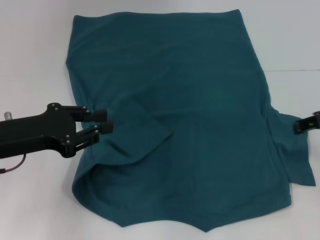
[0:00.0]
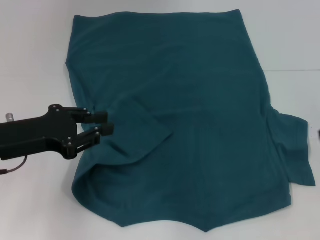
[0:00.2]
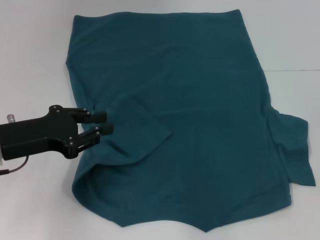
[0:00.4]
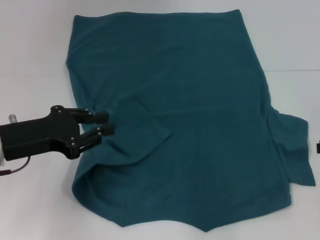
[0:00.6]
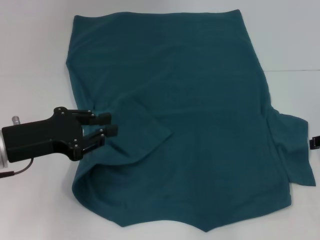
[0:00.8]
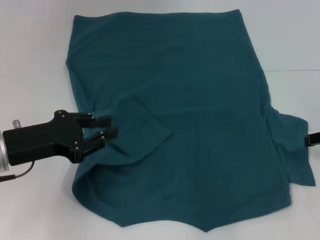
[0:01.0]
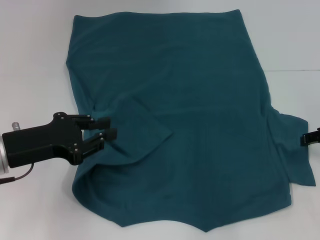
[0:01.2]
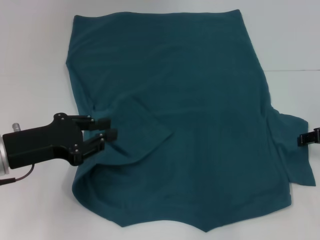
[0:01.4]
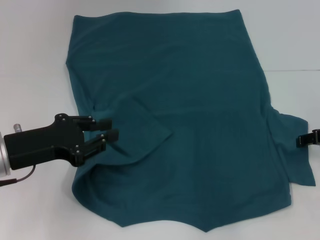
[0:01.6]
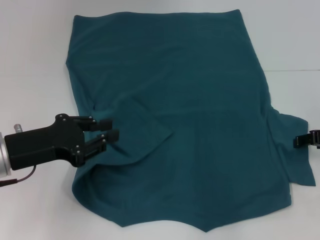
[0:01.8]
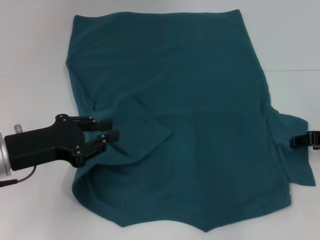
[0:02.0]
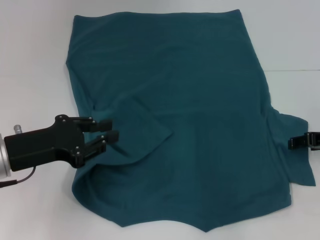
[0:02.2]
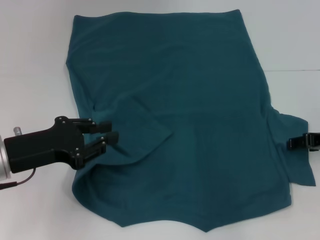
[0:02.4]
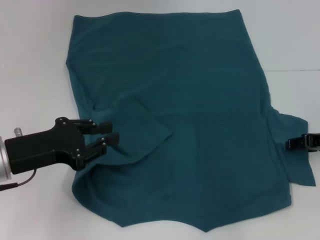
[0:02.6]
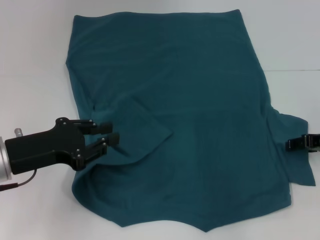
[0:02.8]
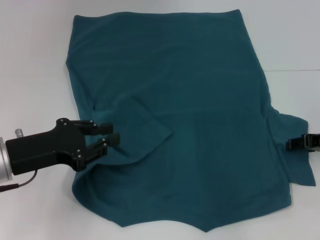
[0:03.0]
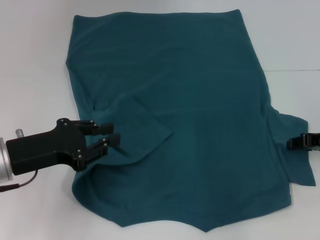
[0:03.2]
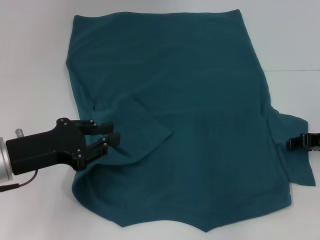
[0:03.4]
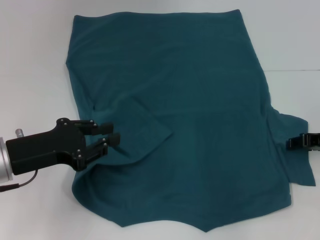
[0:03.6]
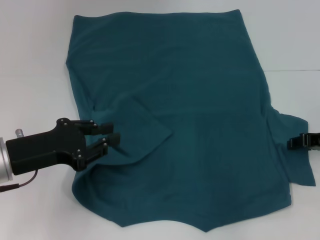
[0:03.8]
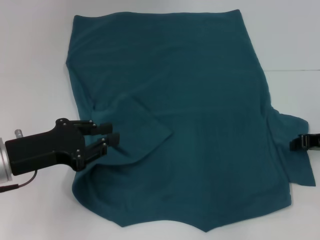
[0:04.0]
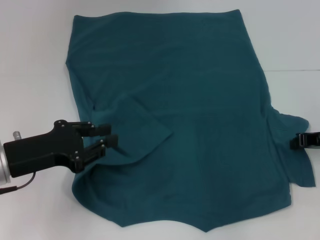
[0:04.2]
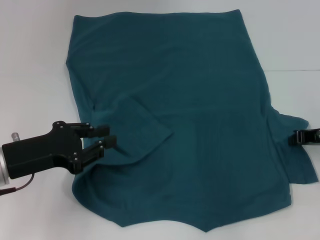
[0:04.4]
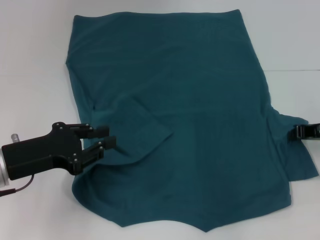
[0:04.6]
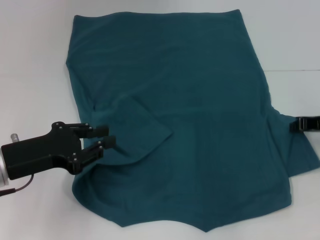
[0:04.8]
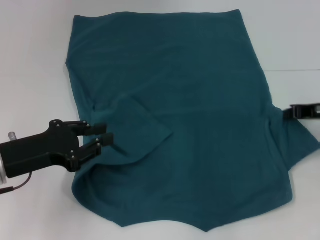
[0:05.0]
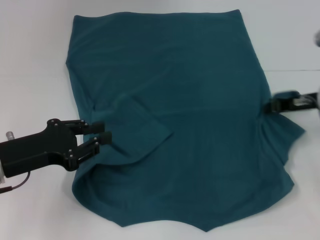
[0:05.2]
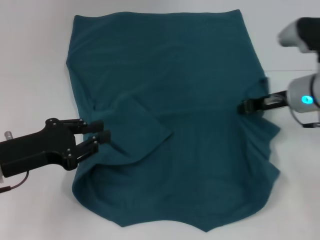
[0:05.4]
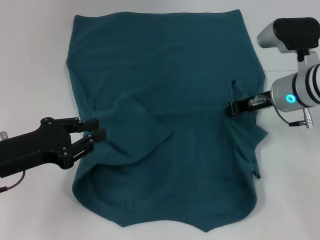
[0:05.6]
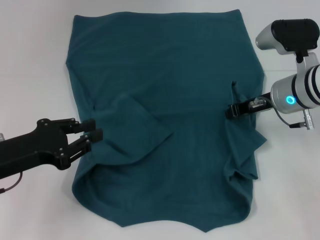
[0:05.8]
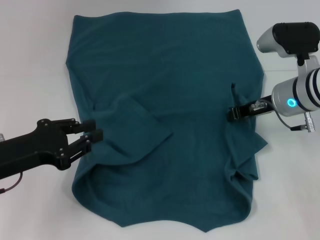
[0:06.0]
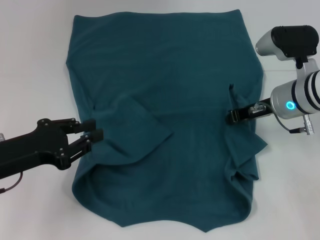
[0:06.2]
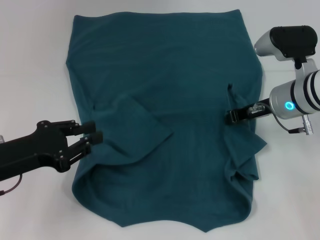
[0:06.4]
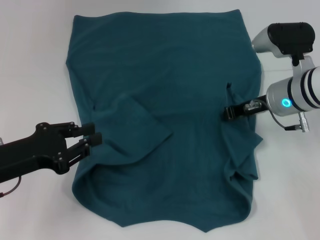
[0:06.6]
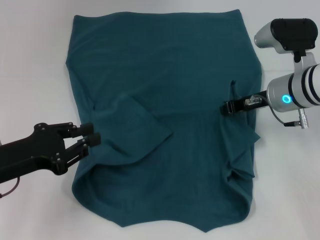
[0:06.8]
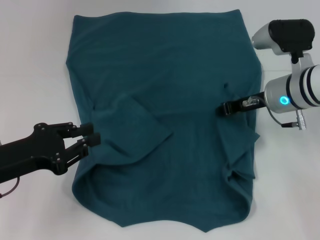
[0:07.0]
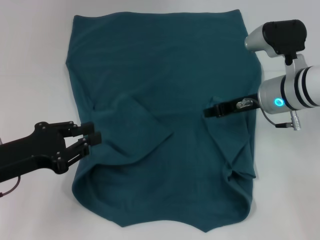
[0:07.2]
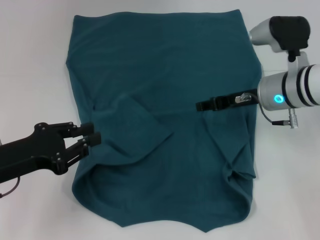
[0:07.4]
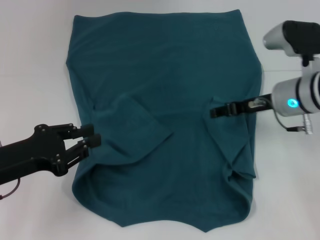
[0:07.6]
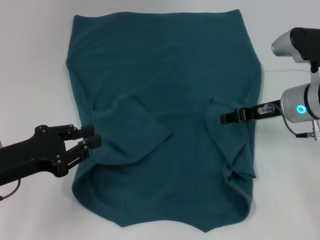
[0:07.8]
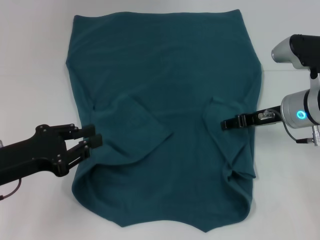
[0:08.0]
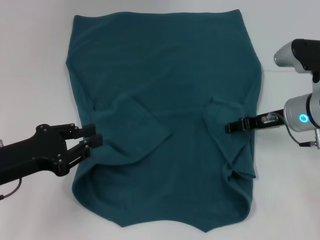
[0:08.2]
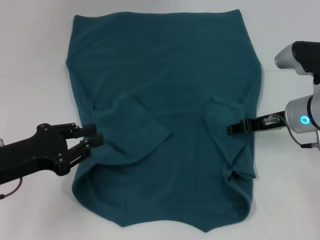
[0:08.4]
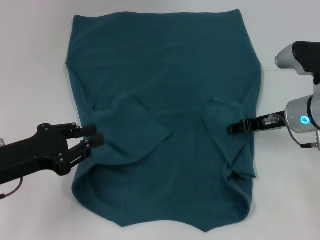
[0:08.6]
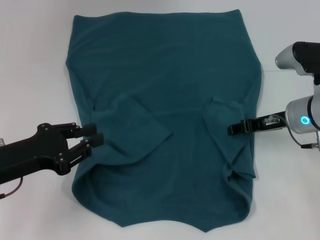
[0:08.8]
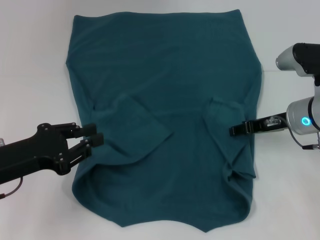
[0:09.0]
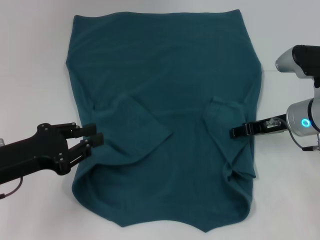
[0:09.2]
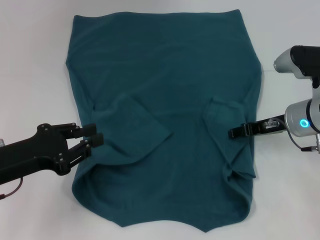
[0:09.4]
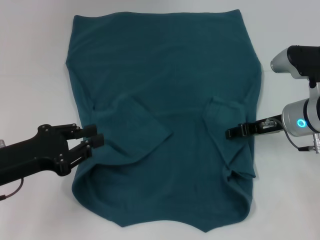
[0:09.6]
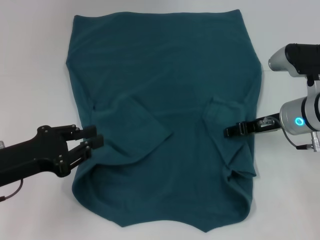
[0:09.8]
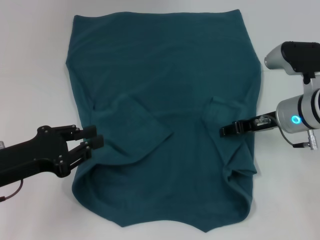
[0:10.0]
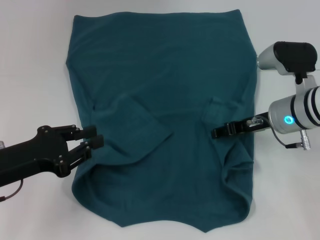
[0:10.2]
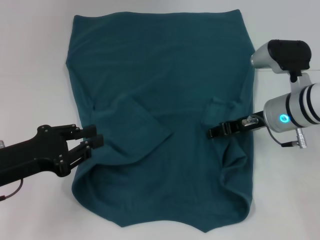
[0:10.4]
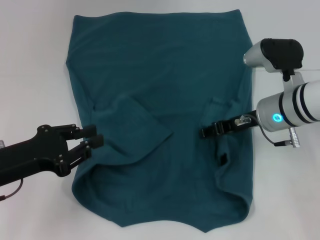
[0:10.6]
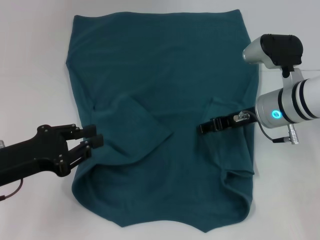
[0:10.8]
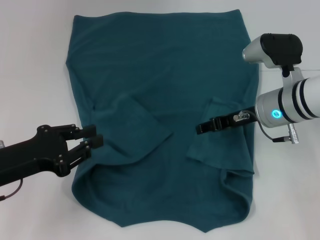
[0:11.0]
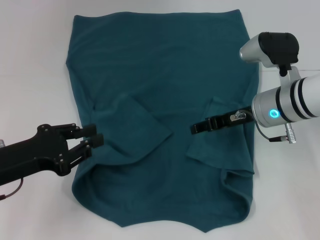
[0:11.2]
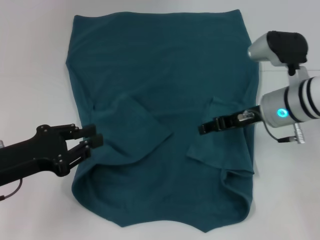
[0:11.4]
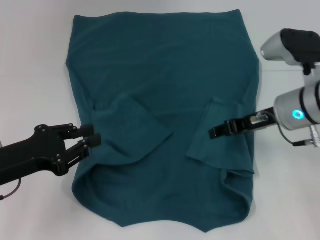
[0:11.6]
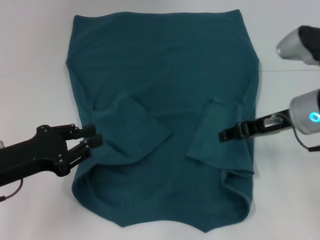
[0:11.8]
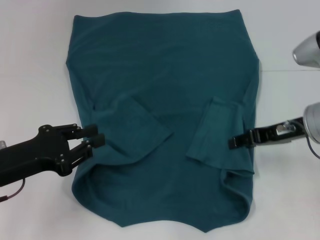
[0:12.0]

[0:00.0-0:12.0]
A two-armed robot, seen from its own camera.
Step, 0:00.0 to 0:11.2: Fold the bottom right sleeve to the right.
0:00.0 to 0:01.6: The right gripper moves downward, roughly 10 cm.
0:01.6 to 0:03.0: The grippers stay close to where they were, moving slightly.
0:03.0 to 0:04.4: The right gripper closes up.
0:04.4 to 0:06.0: The right gripper heads to the left and forward, covering about 10 cm.
0:06.0 to 0:07.6: The right gripper opens up.
0:07.6 to 0:10.4: There are only small adjustments of the grippers.
0:10.4 to 0:12.0: The right gripper goes about 5 cm backward.

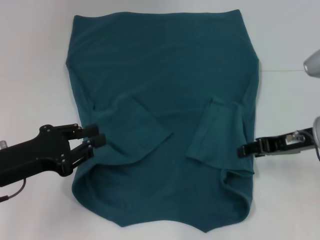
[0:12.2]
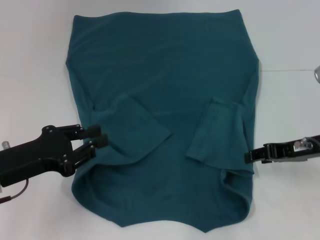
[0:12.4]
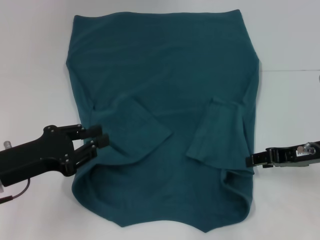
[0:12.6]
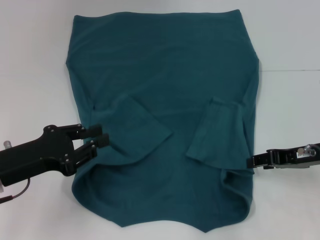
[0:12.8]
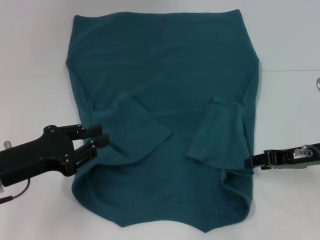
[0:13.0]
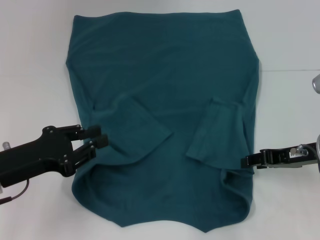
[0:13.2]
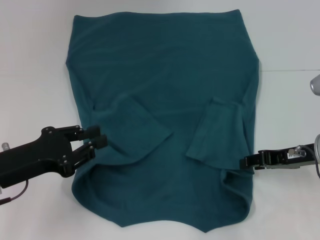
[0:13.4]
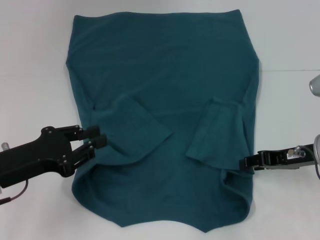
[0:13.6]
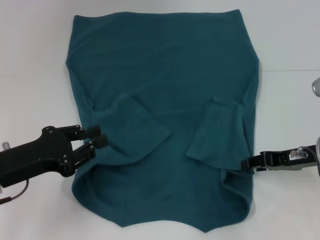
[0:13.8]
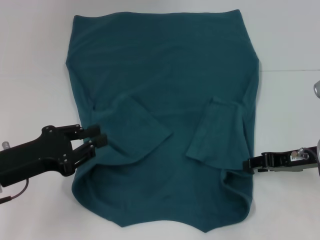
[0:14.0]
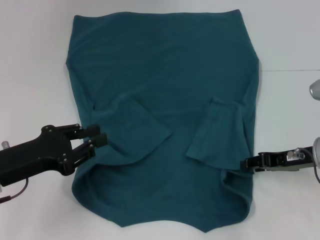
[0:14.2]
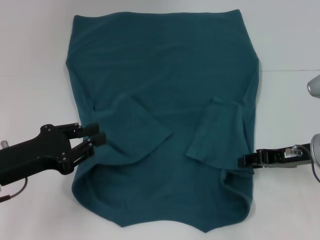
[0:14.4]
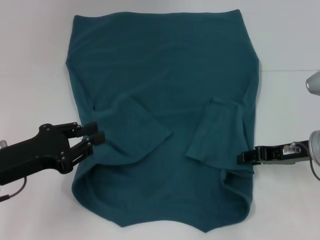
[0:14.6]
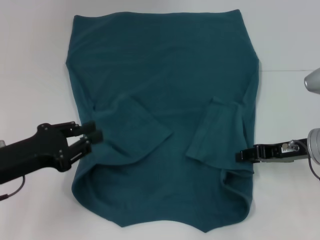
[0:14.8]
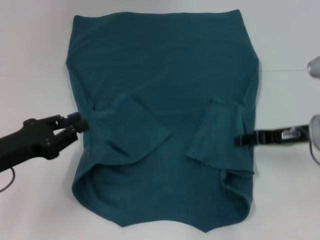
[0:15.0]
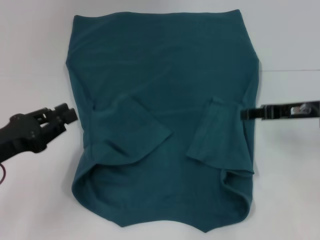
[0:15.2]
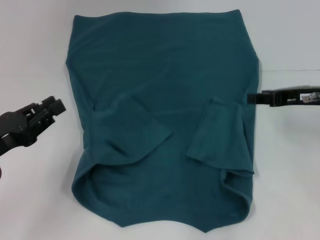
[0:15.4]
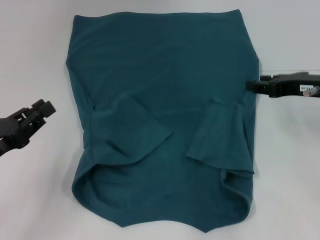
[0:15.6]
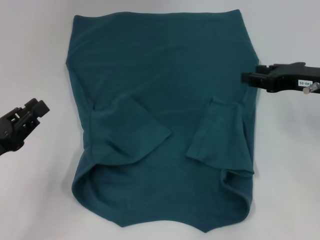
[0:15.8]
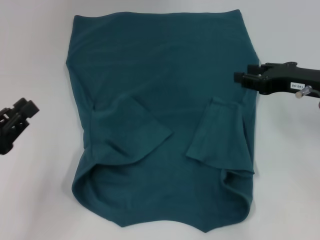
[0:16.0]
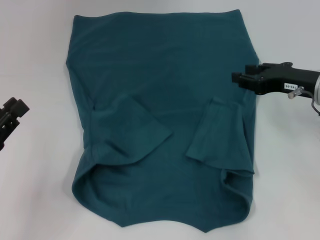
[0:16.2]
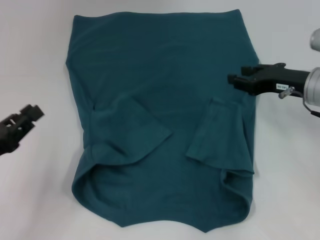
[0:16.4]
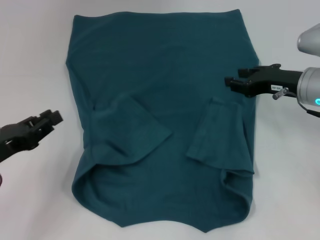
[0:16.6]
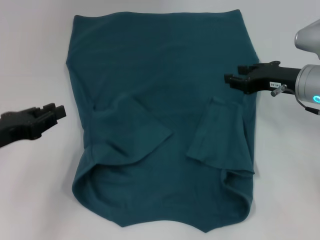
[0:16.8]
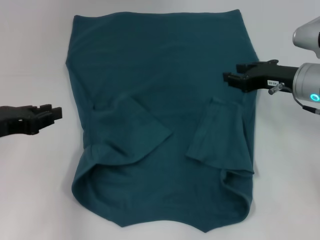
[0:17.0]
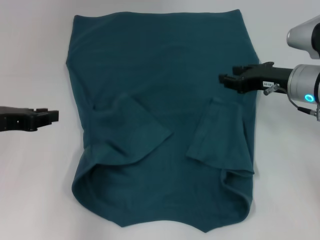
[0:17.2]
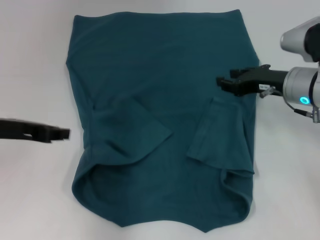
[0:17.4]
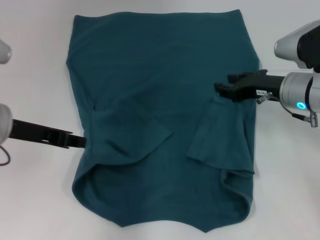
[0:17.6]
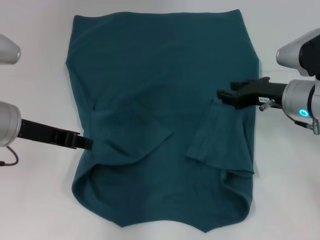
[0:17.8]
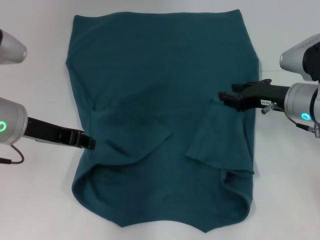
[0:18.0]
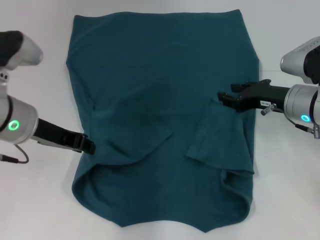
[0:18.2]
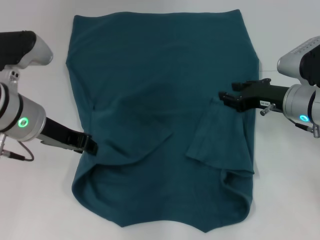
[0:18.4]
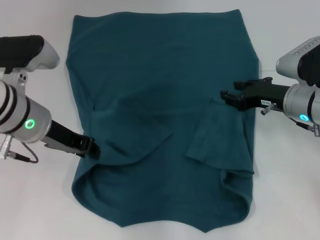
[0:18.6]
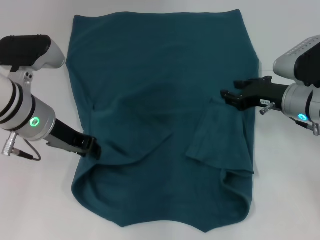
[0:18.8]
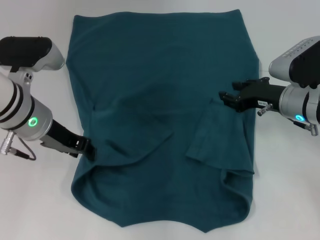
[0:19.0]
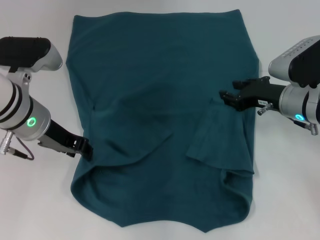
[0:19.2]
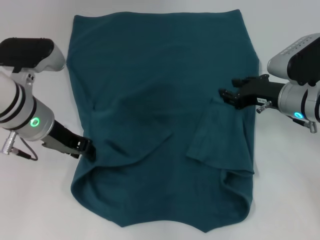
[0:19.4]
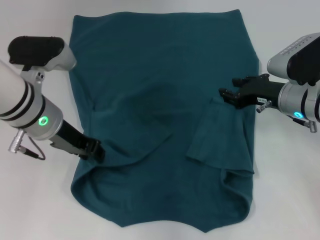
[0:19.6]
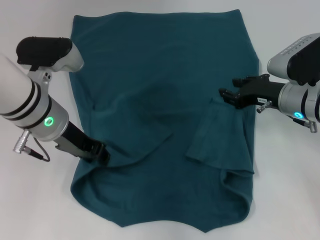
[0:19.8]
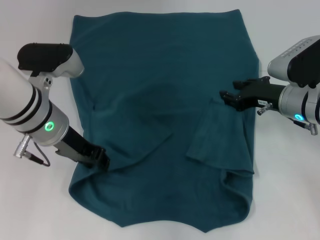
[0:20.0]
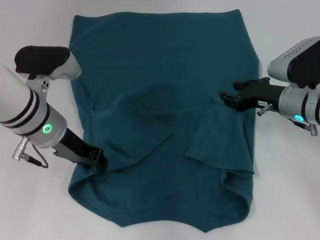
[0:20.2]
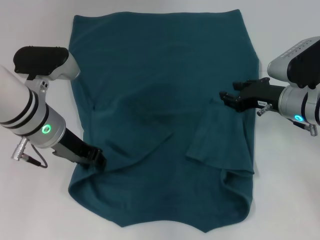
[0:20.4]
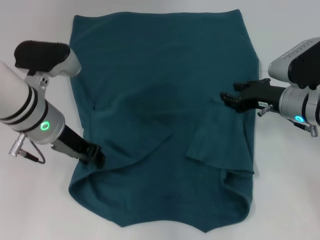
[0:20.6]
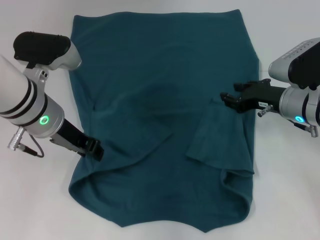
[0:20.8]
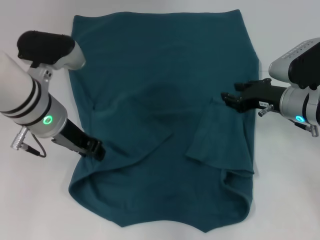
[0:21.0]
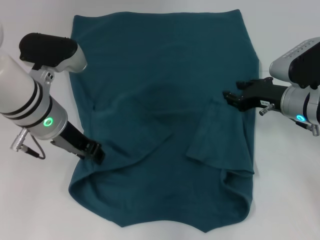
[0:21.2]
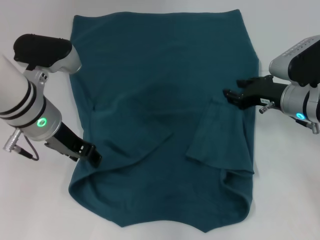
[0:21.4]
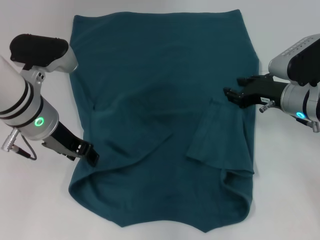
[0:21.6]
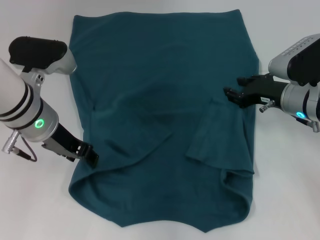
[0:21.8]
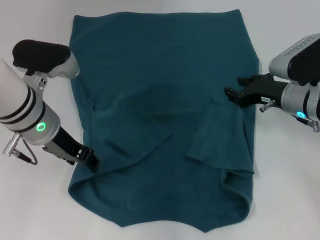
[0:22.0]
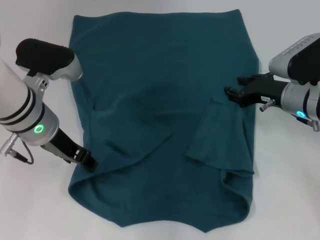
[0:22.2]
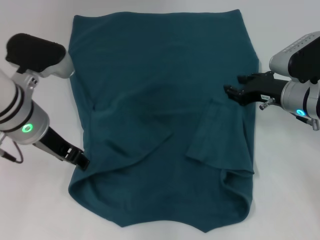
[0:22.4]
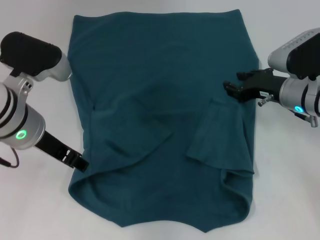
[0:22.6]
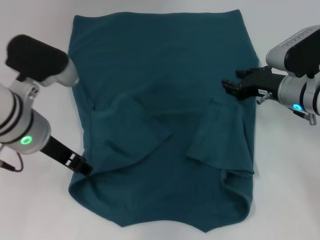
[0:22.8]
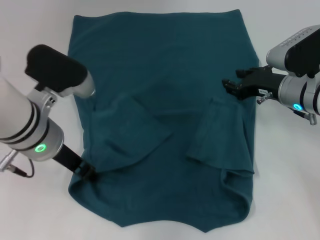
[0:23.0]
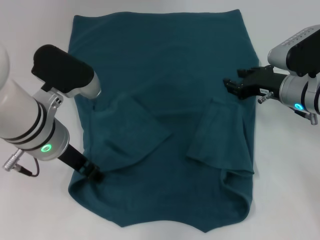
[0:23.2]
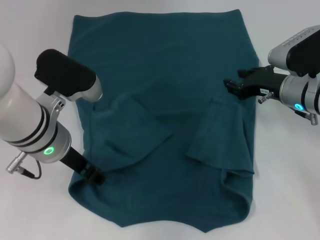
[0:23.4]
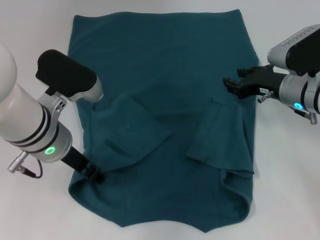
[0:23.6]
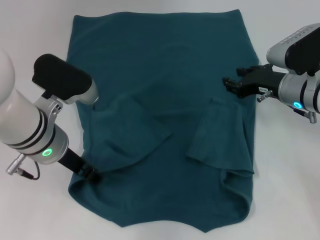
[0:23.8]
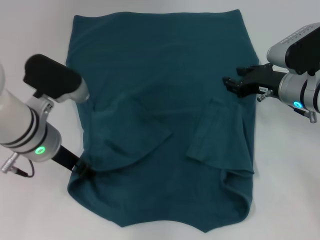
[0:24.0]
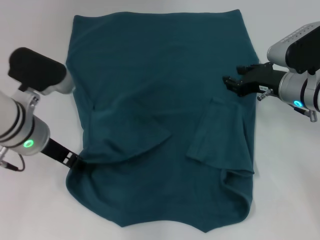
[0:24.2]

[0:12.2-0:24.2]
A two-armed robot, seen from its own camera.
0:12.2 to 0:13.8: The grippers make only small movements.
0:13.8 to 0:15.2: The right gripper ends up roughly 5 cm from where it was.
0:16.6 to 0:18.2: The left gripper is displaced to the right, upward and forward by about 15 cm.
0:18.2 to 0:21.2: The grippers move only a little.
0:21.2 to 0:24.2: There are only small adjustments of the grippers.
